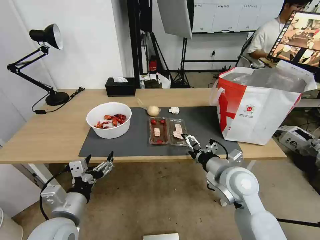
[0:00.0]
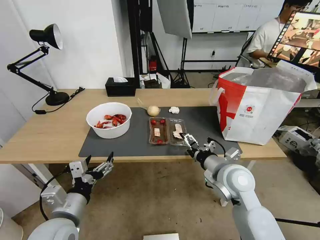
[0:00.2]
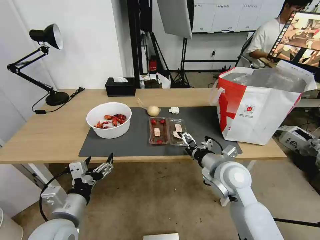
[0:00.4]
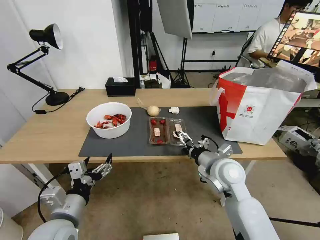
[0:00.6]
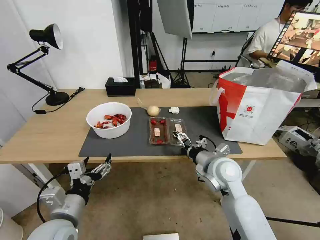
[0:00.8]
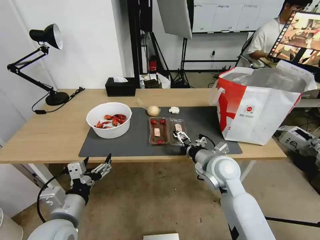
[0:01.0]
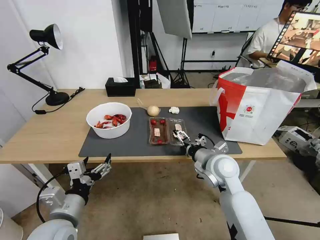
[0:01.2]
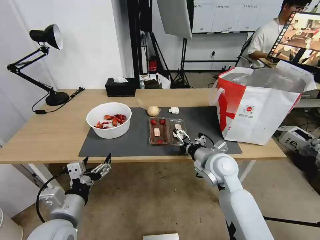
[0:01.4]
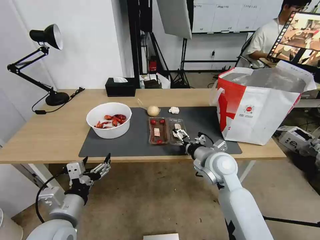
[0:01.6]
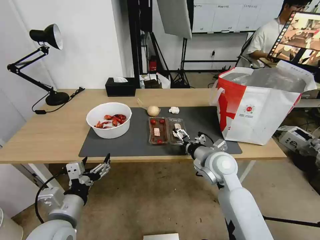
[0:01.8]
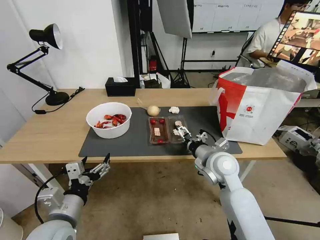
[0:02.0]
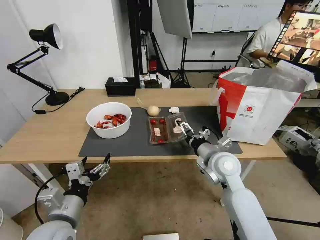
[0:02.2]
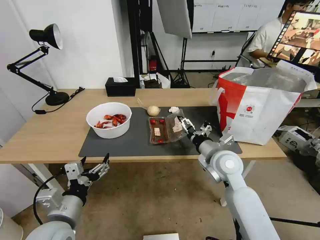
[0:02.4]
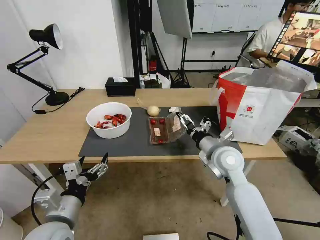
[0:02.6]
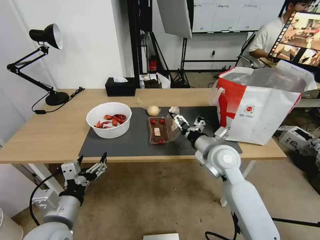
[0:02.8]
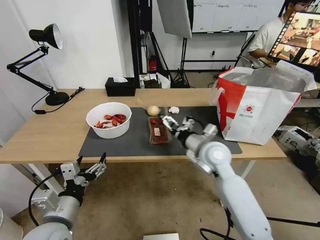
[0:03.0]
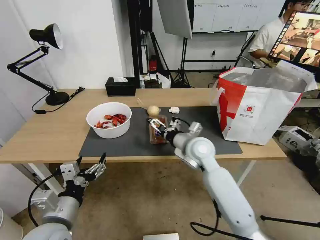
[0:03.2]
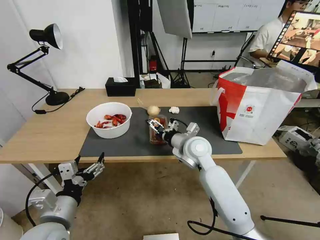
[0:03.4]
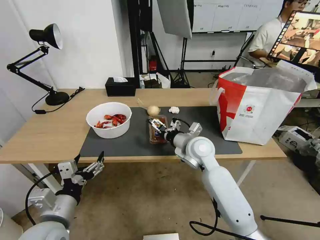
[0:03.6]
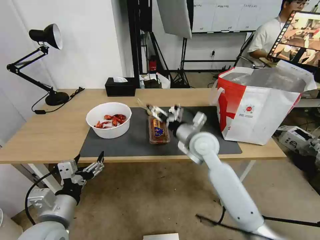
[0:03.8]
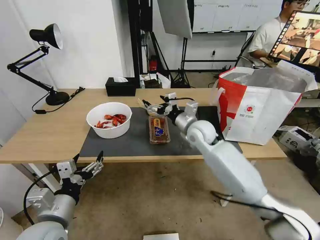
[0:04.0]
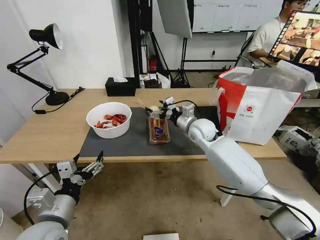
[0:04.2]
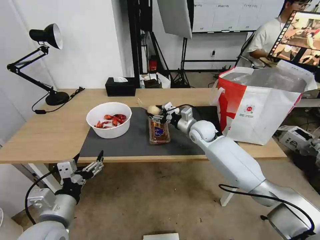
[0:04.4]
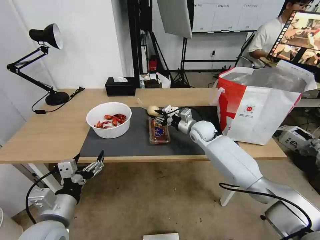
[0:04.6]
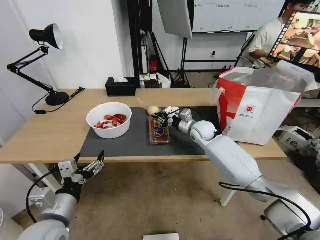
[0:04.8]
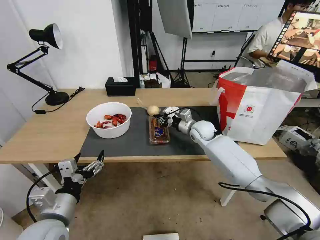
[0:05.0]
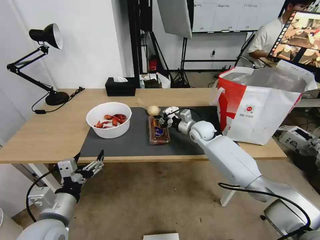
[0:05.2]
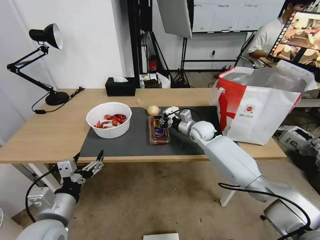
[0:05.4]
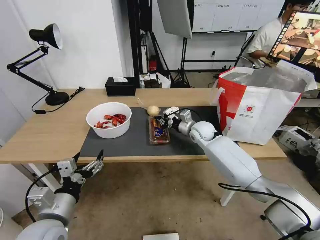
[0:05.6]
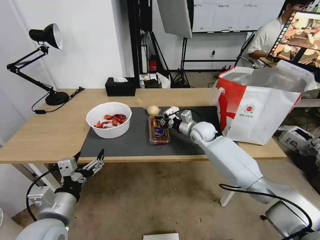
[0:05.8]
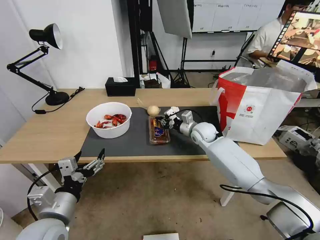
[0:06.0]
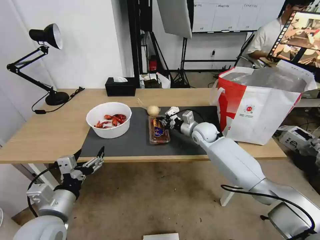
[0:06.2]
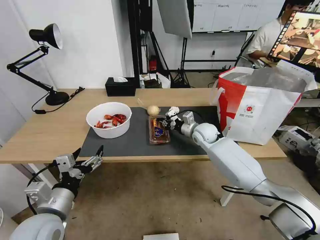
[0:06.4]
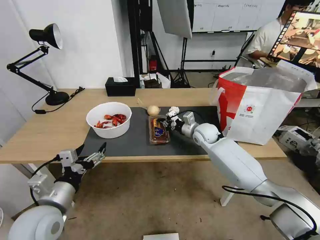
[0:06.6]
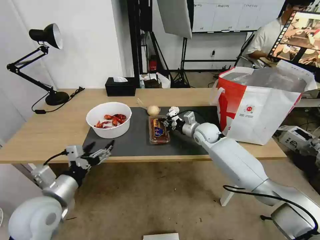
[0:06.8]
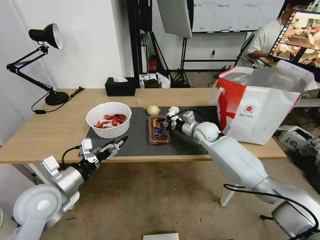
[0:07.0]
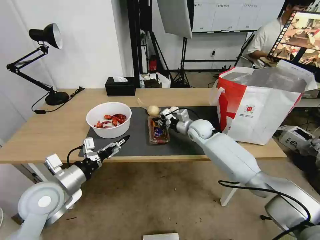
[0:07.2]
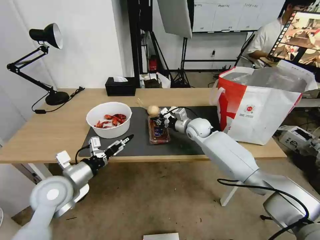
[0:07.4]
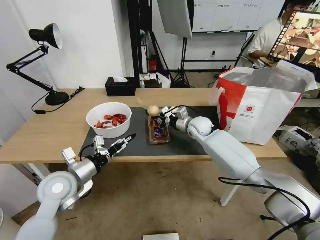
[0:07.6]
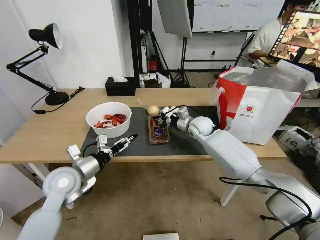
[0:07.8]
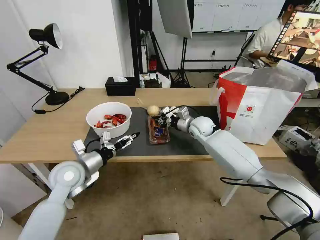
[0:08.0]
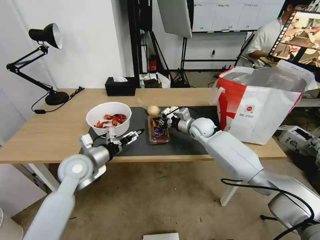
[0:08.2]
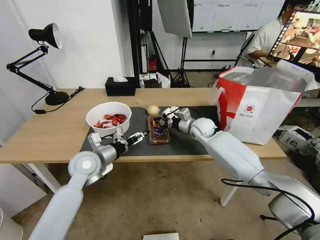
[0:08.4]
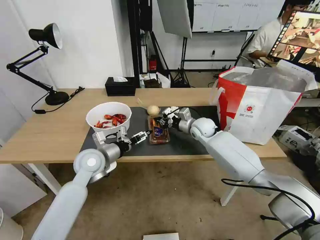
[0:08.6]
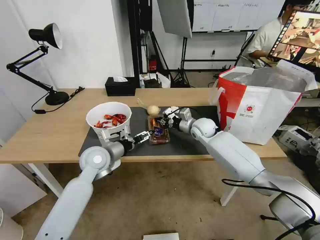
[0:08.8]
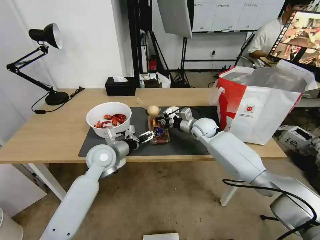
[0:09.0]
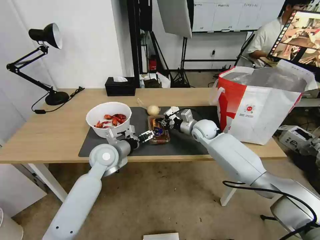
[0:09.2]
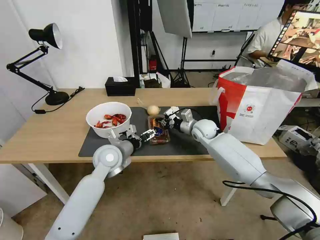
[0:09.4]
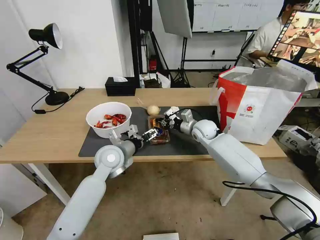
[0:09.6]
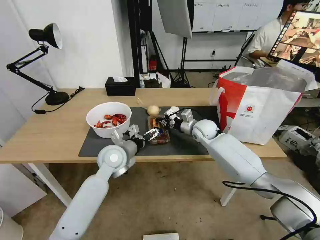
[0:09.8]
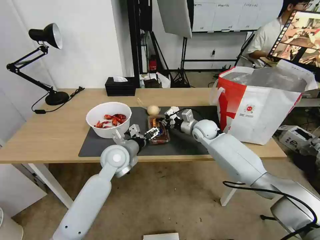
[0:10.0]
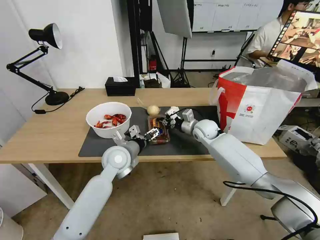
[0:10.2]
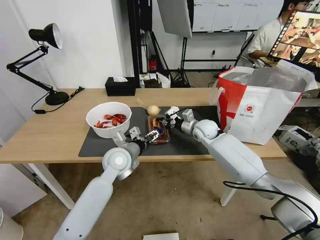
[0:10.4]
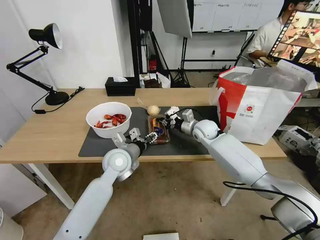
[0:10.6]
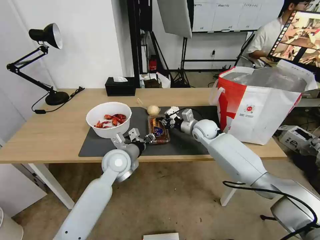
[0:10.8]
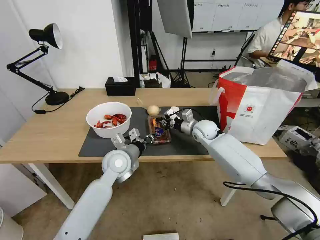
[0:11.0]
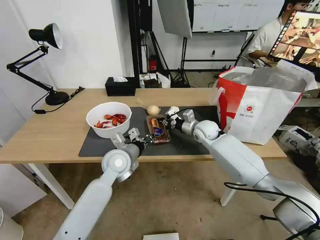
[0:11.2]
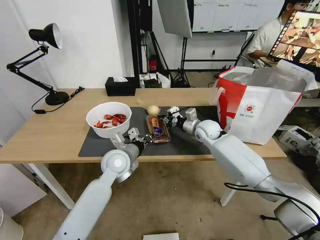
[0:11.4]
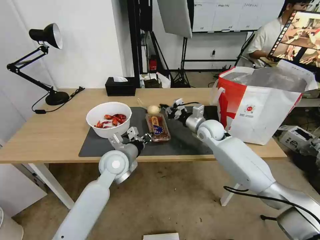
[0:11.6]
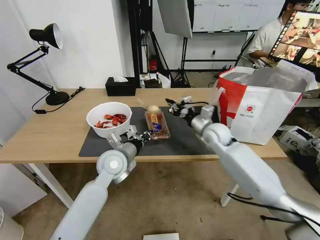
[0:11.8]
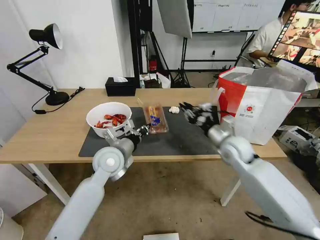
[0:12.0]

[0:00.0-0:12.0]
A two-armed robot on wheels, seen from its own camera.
Task of the whole recording: Pick up the trash from the table and place it into the takeout bag.
0:00.0 to 0:01.6: The right gripper shifts approximately 5 cm forward.
0:03.0 to 0:04.4: The right gripper heads forward, covering approximately 15 cm.
0:04.4 to 0:06.0: The right gripper closes.
0:06.0 to 0:07.6: The left gripper travels forward by about 10 cm.
0:07.6 to 0:09.0: The left gripper shifts roughly 15 cm forward and to the right.
0:09.0 to 0:10.4: The left gripper travels to the right by approximately 5 cm.
0:10.4 to 0:12.0: The left gripper closes up. The right gripper goes approximately 15 cm backward and to the right.

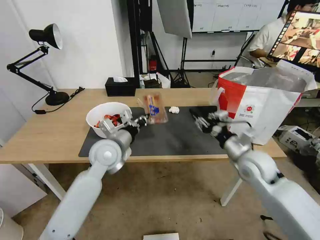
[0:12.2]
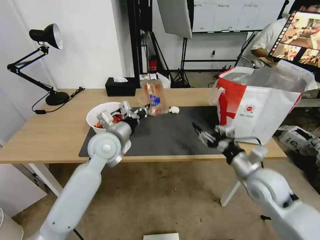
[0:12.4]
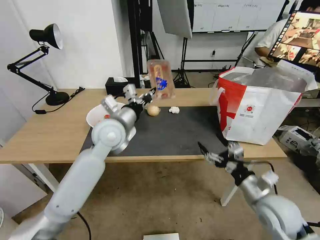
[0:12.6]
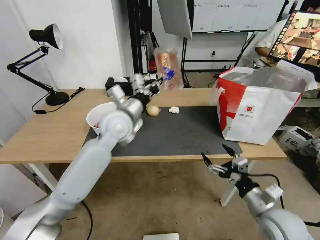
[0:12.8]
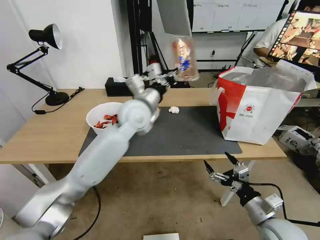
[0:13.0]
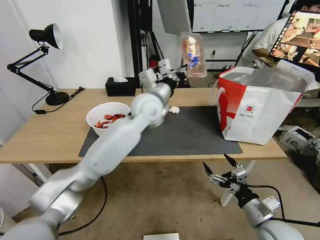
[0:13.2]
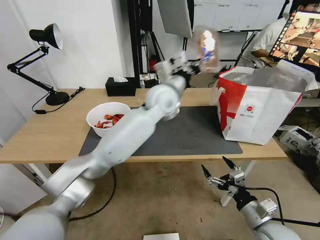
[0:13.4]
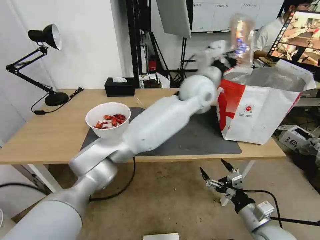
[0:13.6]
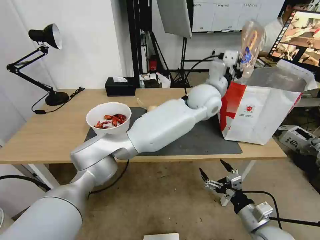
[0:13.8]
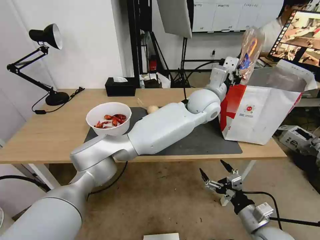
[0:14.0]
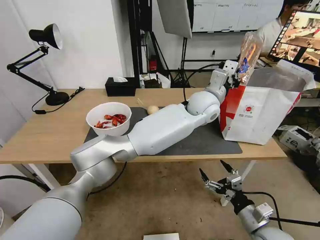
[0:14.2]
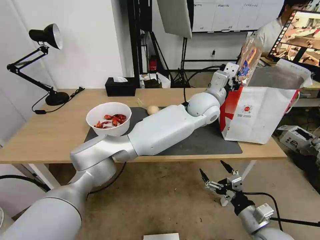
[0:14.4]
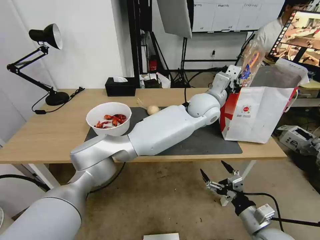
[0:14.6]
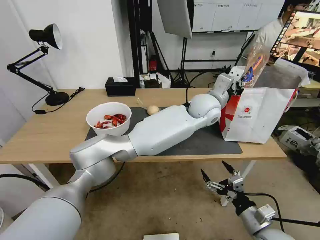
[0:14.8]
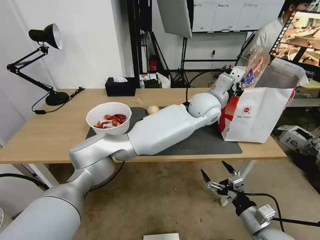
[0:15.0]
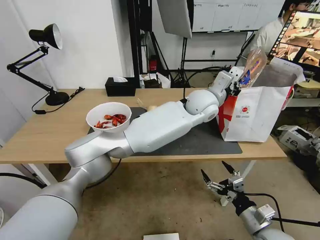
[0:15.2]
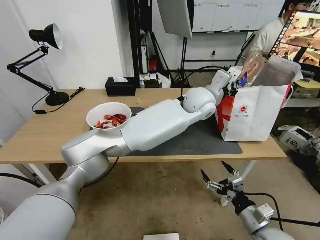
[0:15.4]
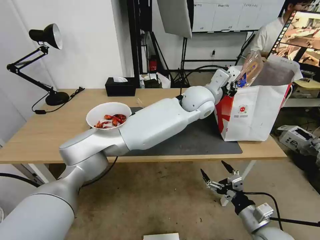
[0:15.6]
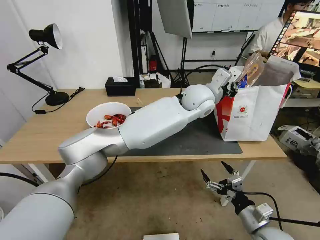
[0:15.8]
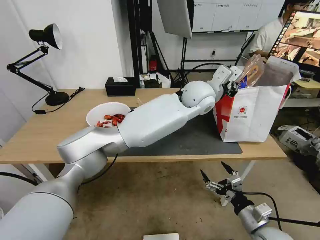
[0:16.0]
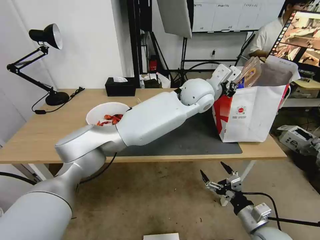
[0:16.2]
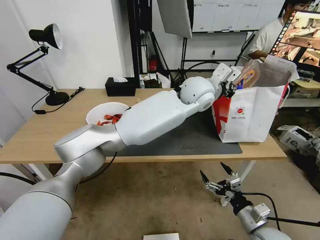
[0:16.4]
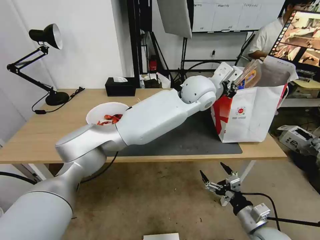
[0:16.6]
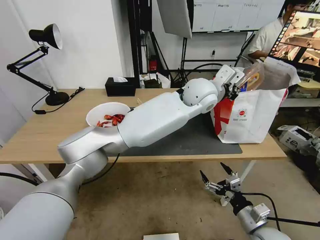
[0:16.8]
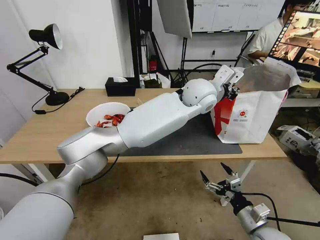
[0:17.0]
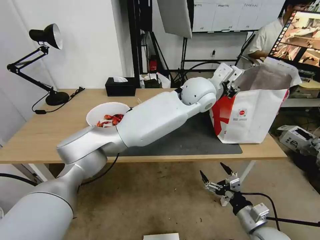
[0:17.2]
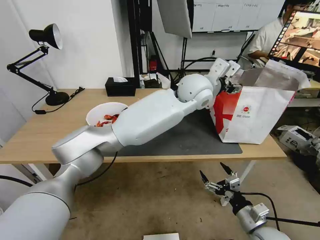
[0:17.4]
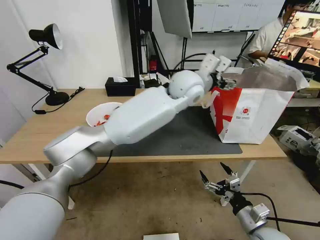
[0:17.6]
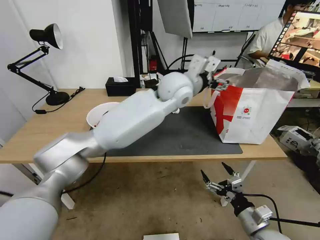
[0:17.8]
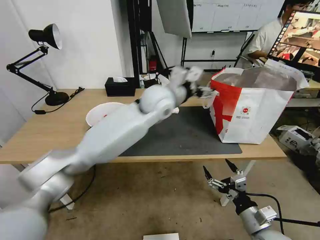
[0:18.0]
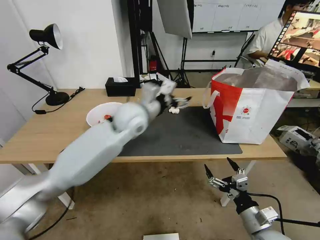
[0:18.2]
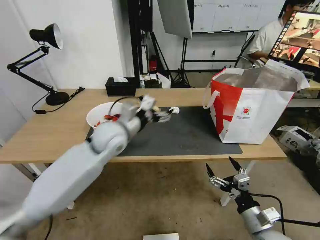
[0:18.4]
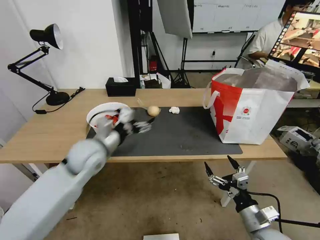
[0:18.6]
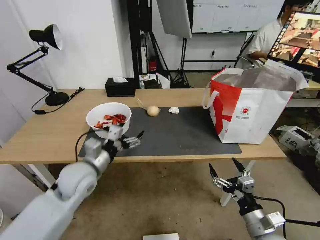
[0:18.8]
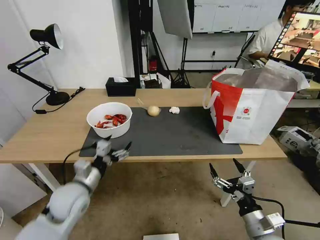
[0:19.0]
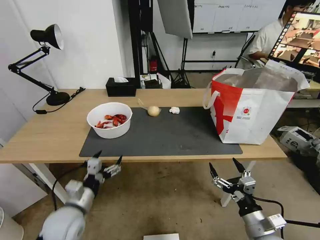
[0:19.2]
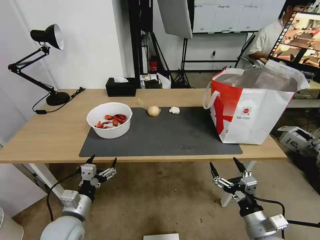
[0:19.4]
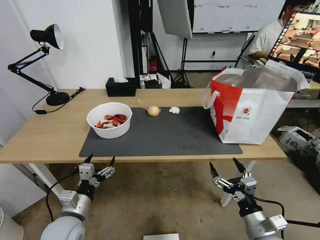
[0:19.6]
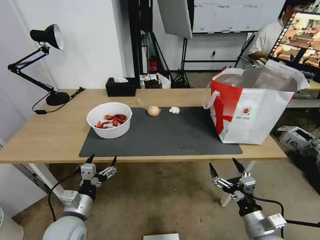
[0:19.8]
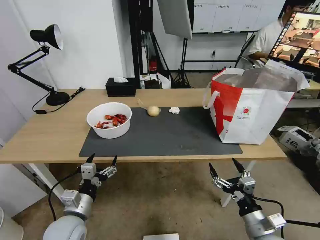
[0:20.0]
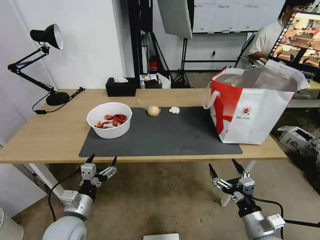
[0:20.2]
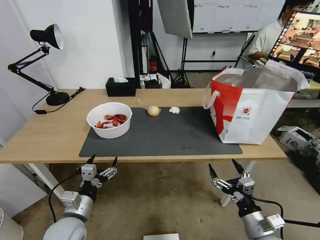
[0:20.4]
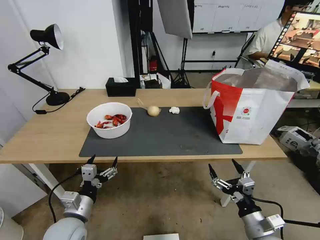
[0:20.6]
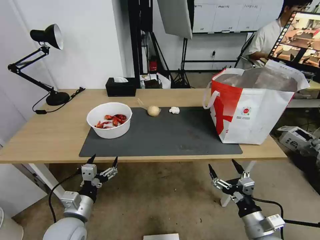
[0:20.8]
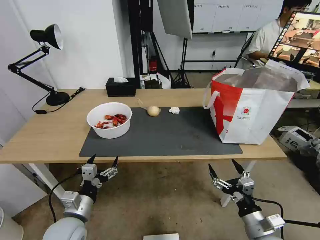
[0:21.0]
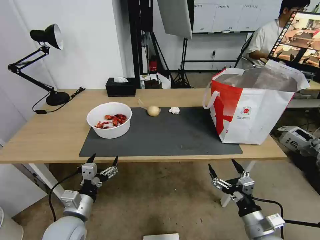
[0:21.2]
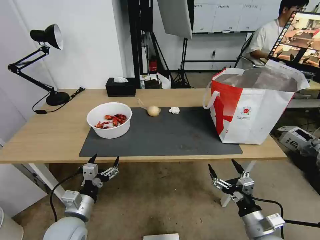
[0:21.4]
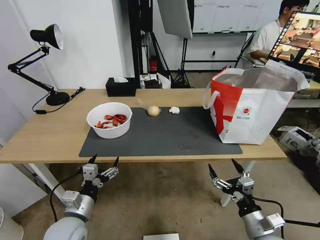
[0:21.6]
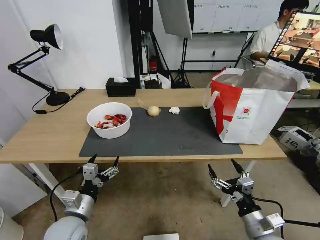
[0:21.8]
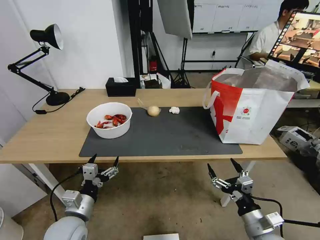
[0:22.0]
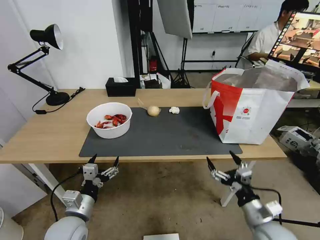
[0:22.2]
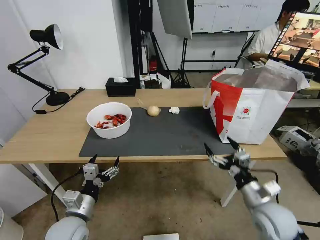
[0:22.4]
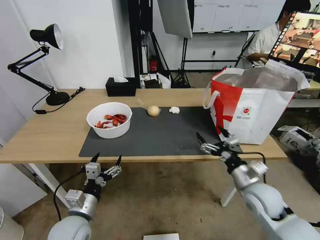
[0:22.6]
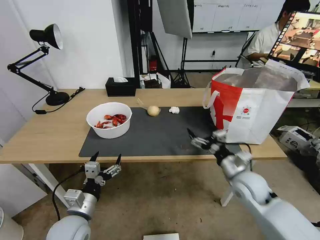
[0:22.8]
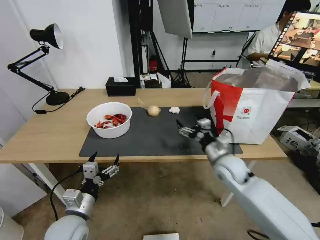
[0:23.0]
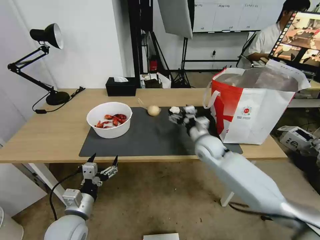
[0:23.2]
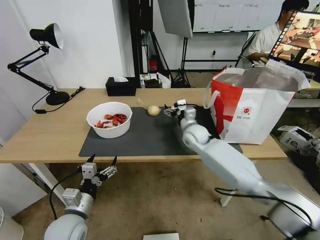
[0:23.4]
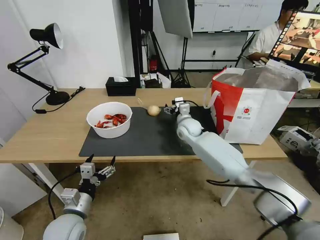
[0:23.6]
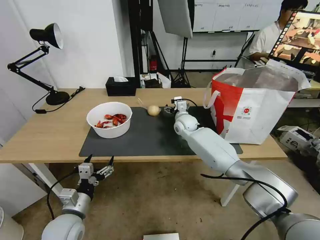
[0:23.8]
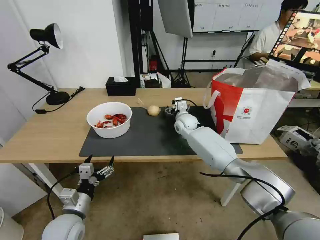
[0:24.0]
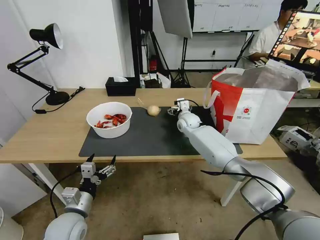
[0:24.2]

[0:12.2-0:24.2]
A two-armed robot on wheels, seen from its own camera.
Task of the whole recording: Pick up the trash from the table and place it into the takeout bag.
0:12.2 to 0:13.8: The left gripper shifts some 30 cm to the right and upward; the right gripper travels backward and downward by roughly 20 cm, and opens up.
0:13.8 to 0:15.2: The grippers move only a little.
0:15.2 to 0:16.6: The grippers make only small movements.
0:16.6 to 0:18.2: The left gripper heads to the left, covering about 20 cm, and opens its fingers.
0:18.2 to 0:19.8: The left gripper goes some 35 cm backward, downward and to the left.
0:19.8 to 0:21.2: Both grippers stay put.
0:21.2 to 0:22.6: The right gripper moves forward and upward, roughly 15 cm.
0:22.6 to 0:24.2: The right gripper goes approximately 35 cm forward and to the left.
